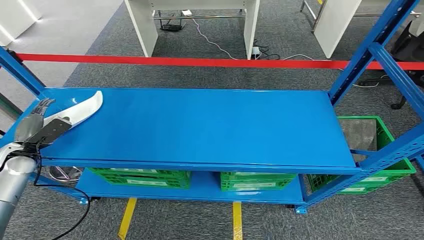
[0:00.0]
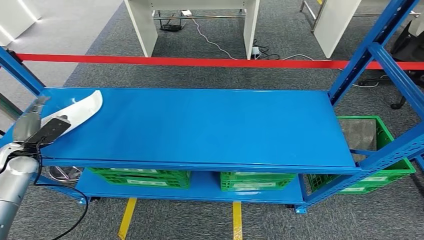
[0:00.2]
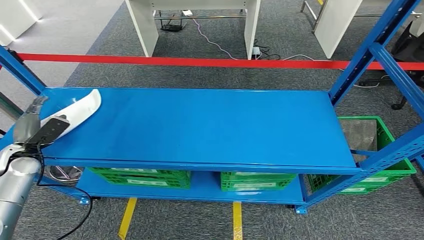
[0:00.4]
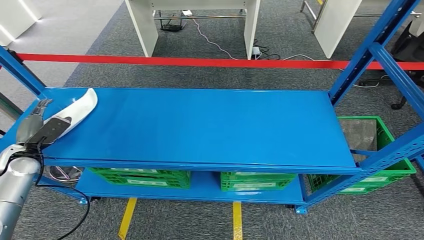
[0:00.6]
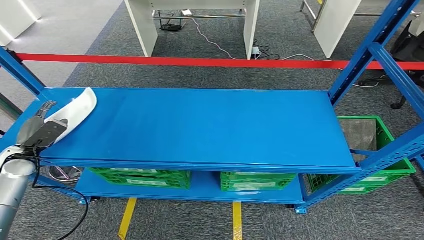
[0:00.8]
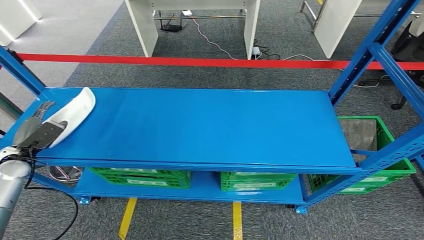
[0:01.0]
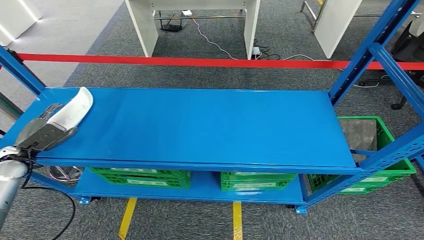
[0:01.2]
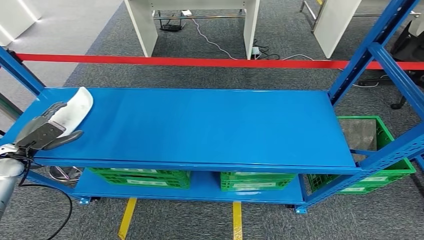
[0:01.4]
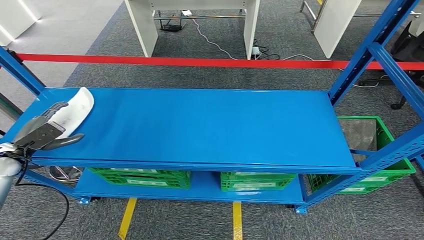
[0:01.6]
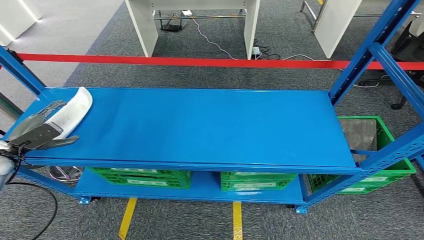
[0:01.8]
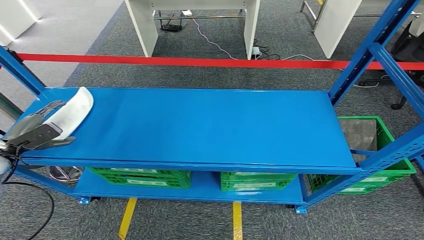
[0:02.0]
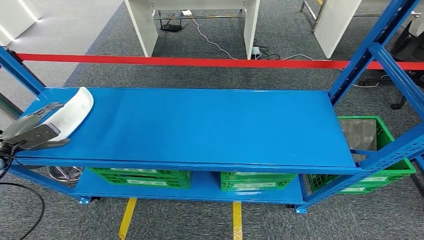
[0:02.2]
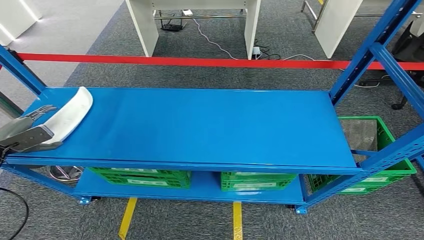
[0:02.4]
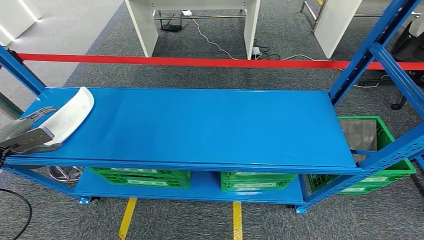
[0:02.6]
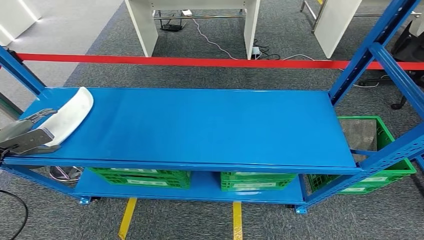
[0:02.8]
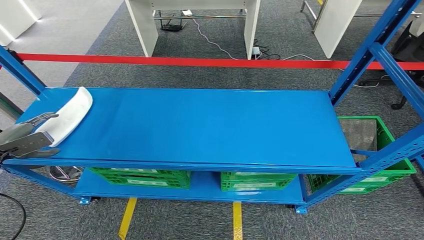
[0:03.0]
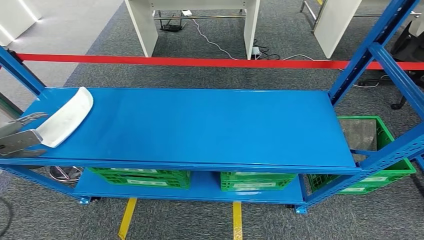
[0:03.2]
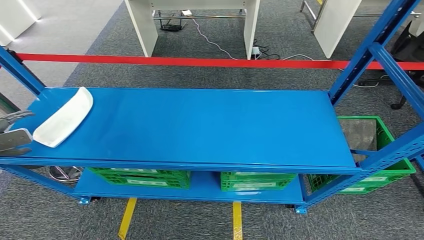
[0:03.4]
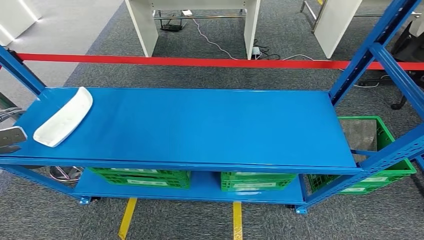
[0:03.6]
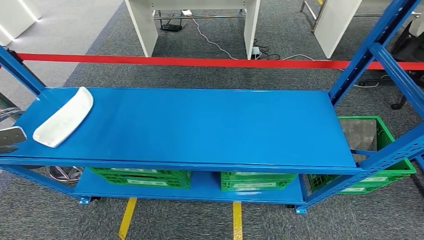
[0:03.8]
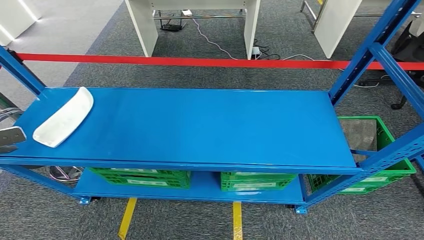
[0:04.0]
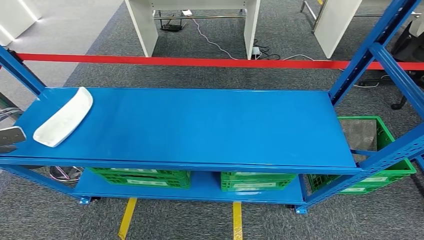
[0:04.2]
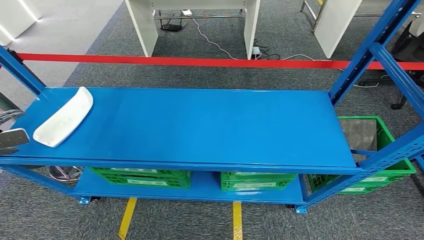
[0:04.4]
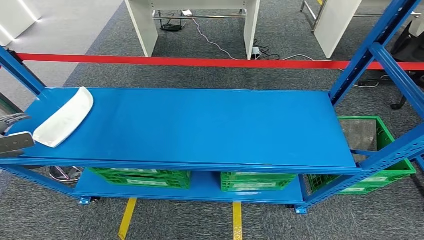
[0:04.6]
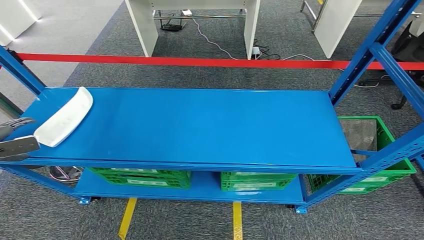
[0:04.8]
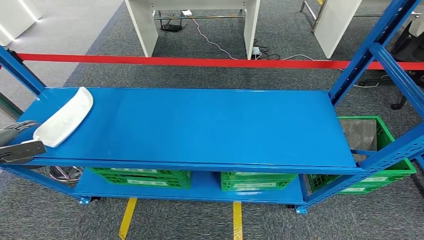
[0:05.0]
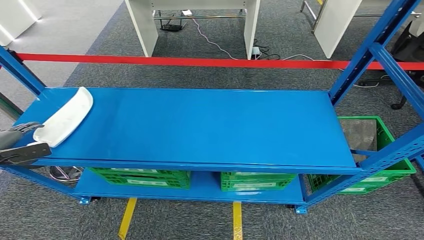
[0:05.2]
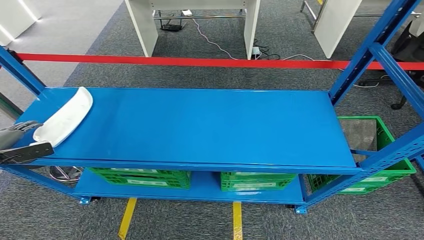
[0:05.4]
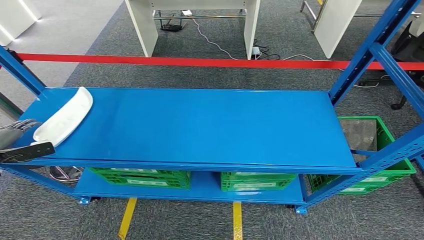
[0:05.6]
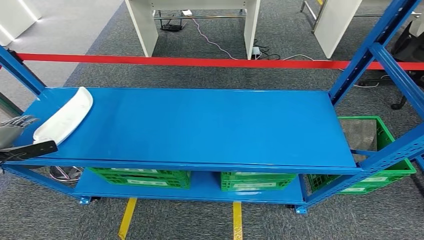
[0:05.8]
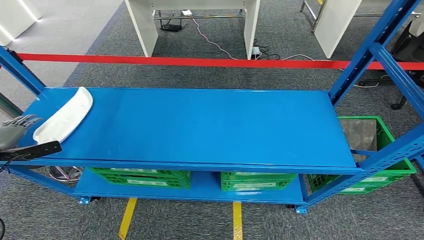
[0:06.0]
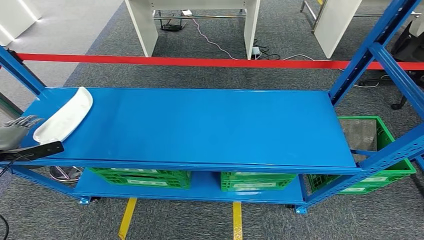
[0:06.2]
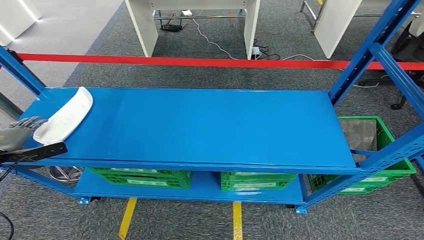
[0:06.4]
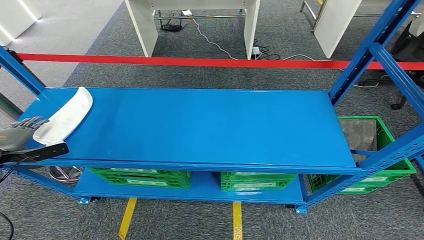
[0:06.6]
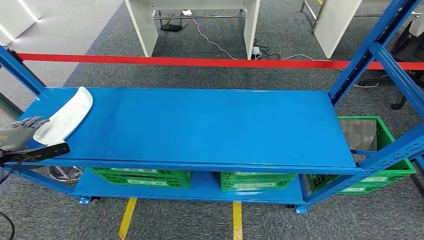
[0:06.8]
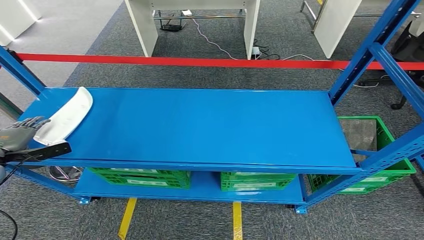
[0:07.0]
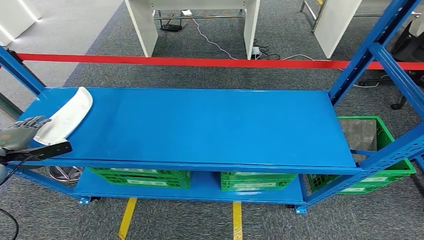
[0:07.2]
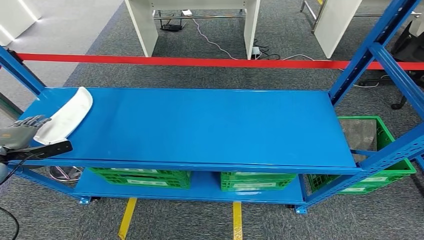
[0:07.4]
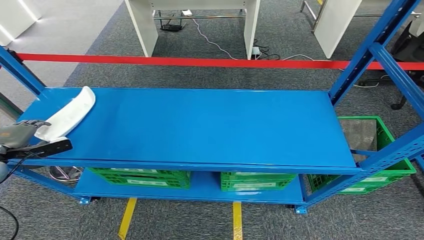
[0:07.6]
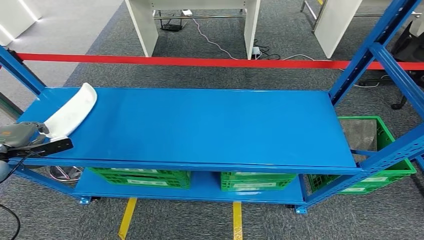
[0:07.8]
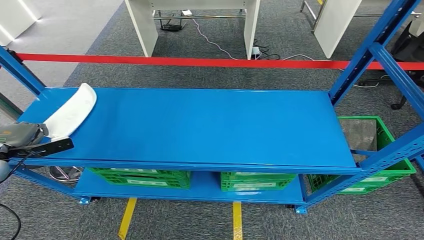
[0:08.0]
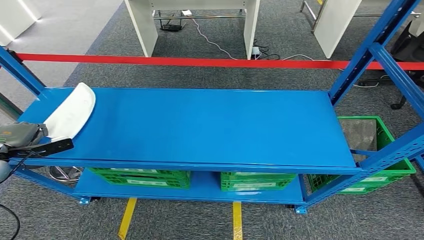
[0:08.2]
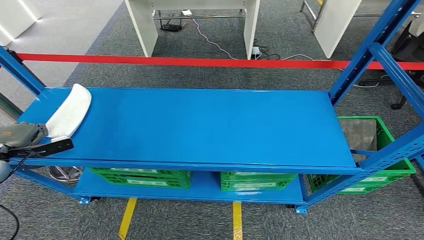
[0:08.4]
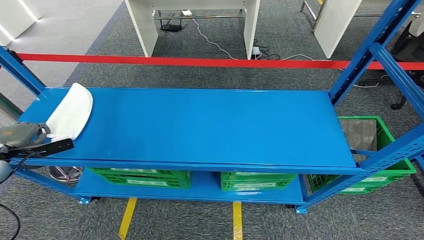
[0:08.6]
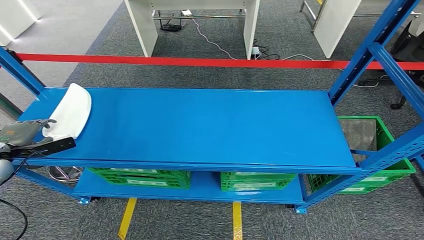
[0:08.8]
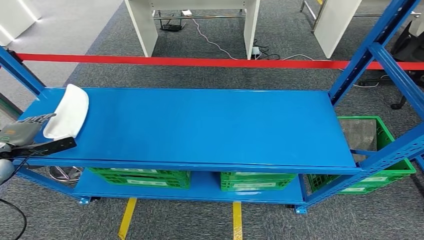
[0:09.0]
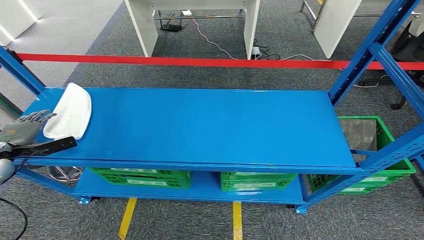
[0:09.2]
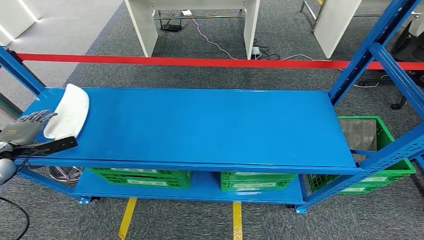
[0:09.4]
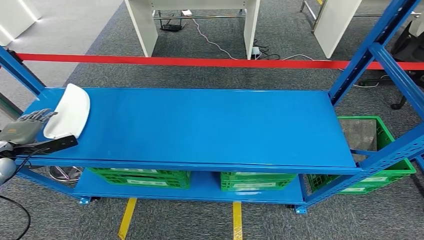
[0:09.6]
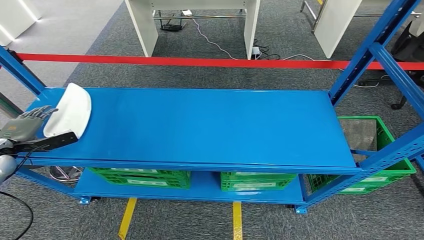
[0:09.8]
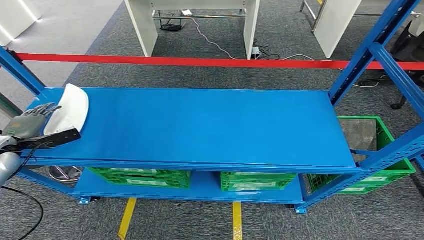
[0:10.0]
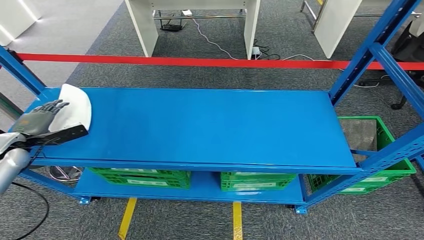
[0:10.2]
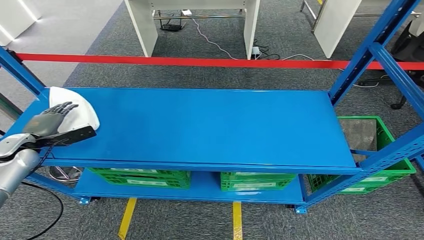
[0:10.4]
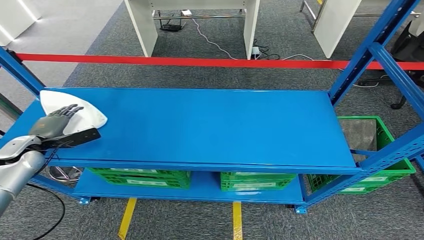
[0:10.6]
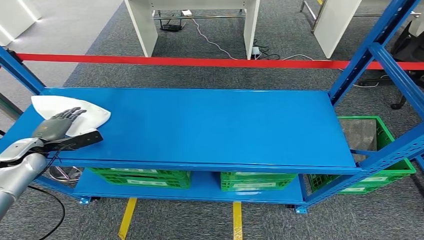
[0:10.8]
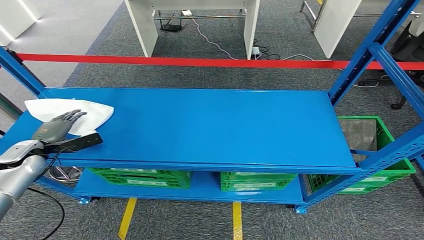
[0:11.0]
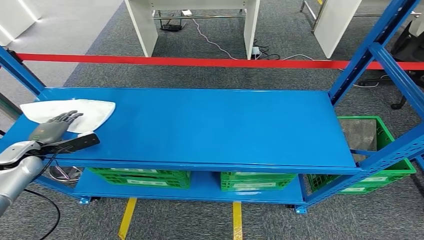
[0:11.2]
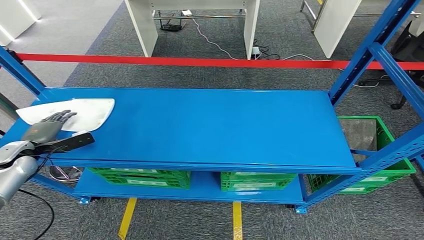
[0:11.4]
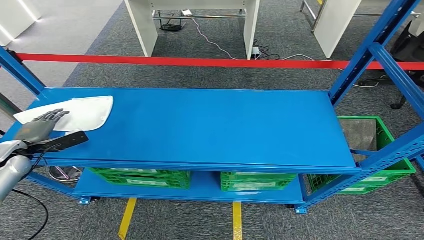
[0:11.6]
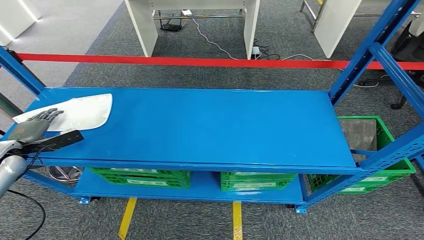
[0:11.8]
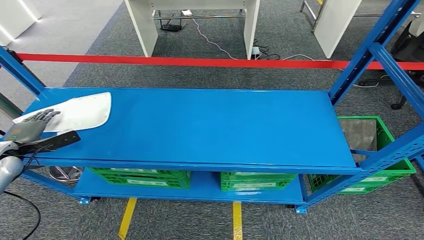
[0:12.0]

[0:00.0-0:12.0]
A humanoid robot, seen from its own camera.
0:01.6 to 0:03.0: The left hand ends up approximately 5 cm from where it was.
0:03.0 to 0:04.4: The left hand is displaced to the left by roughly 5 cm.
0:04.4 to 0:06.0: The left hand is displaced downward by approximately 5 cm.
0:06.0 to 0:07.6: The hands move only a little.
0:07.6 to 0:09.0: Neither hand changes place.
0:09.0 to 0:10.4: The left hand changes place by approximately 5 cm.
0:10.4 to 0:12.0: There are only small adjustments of the hands.

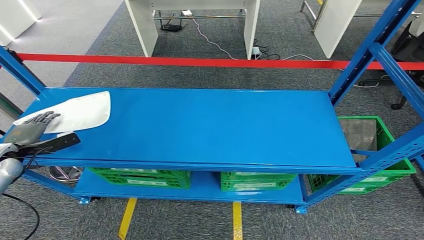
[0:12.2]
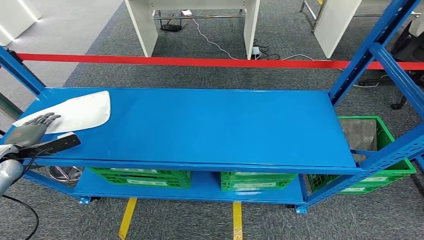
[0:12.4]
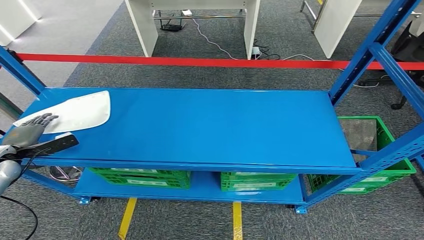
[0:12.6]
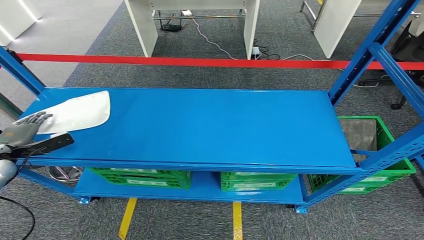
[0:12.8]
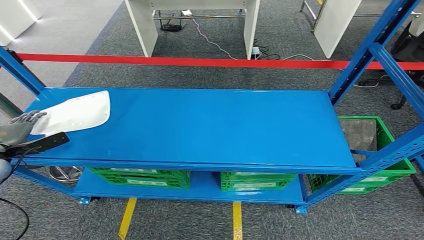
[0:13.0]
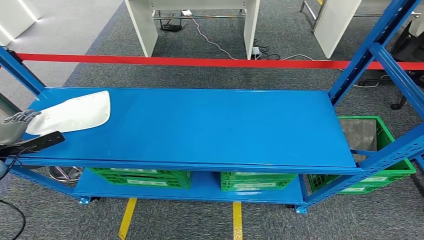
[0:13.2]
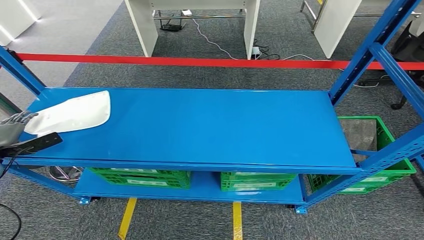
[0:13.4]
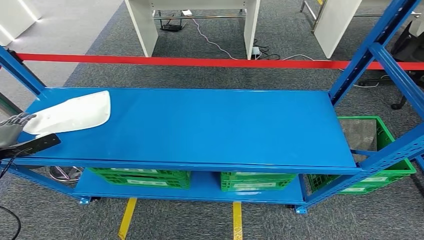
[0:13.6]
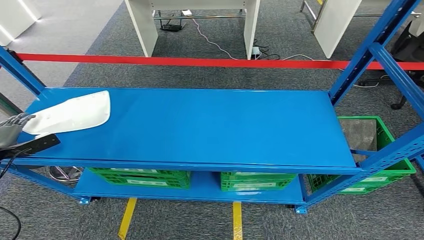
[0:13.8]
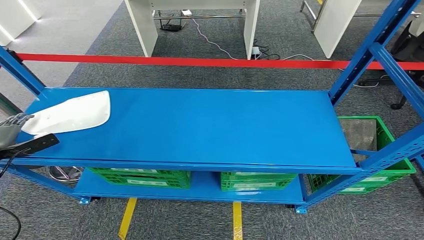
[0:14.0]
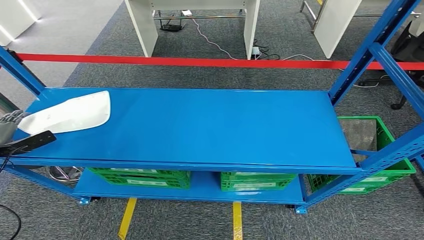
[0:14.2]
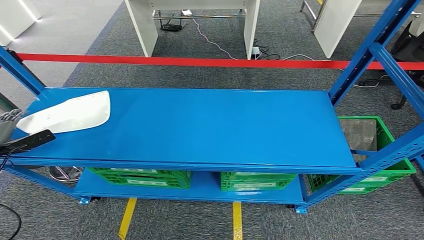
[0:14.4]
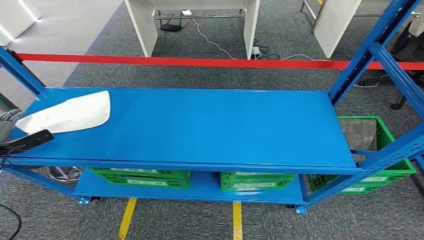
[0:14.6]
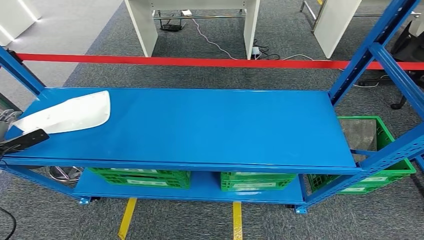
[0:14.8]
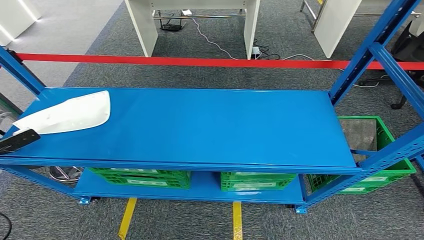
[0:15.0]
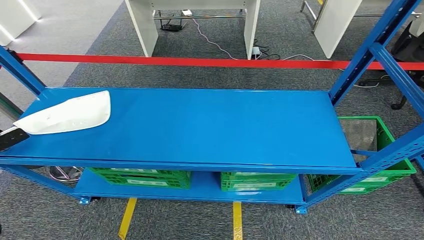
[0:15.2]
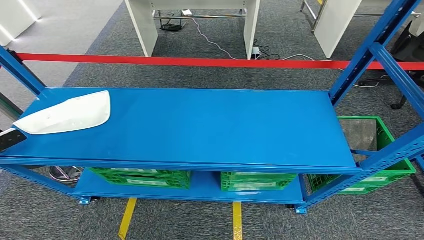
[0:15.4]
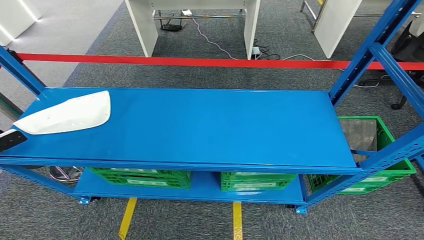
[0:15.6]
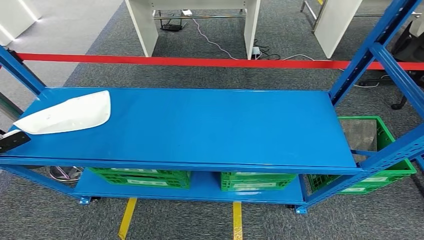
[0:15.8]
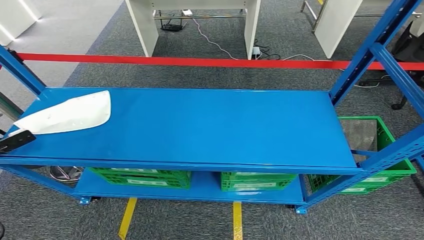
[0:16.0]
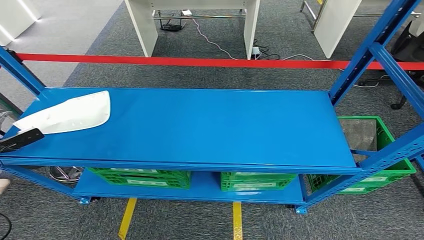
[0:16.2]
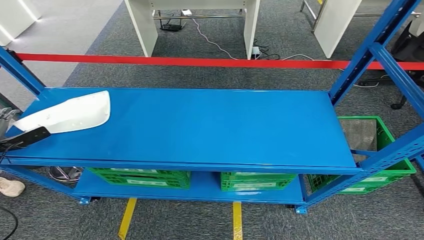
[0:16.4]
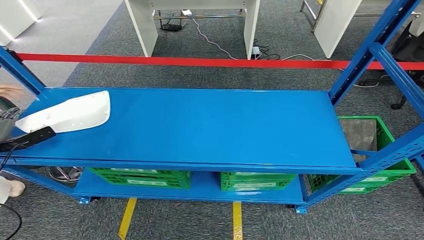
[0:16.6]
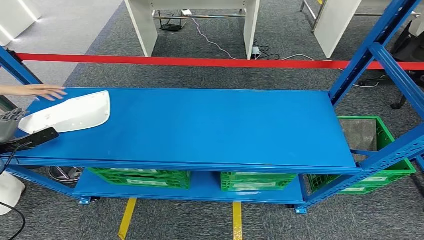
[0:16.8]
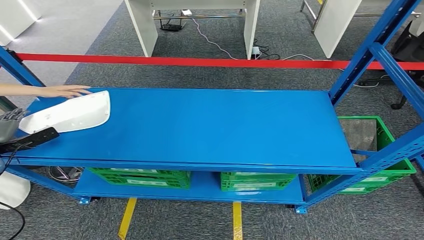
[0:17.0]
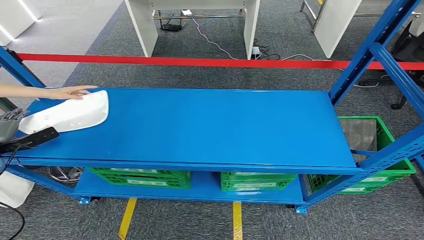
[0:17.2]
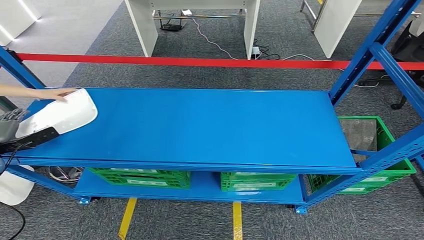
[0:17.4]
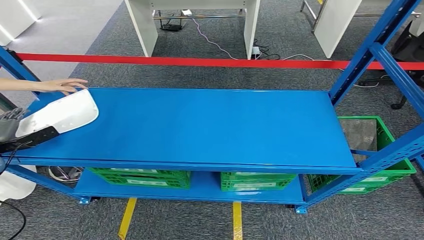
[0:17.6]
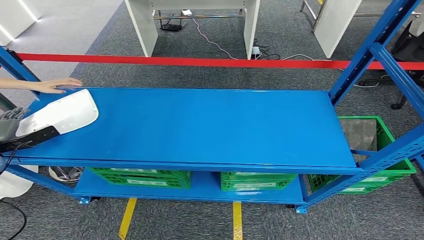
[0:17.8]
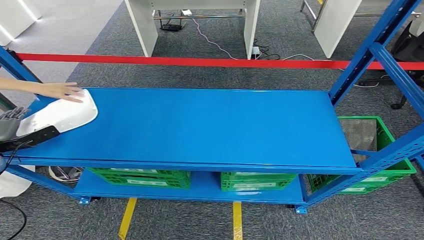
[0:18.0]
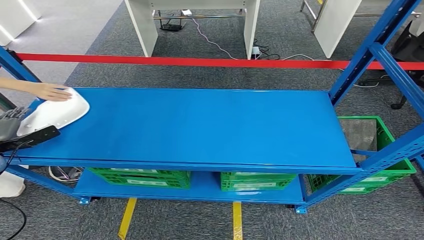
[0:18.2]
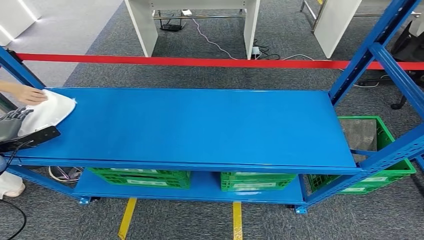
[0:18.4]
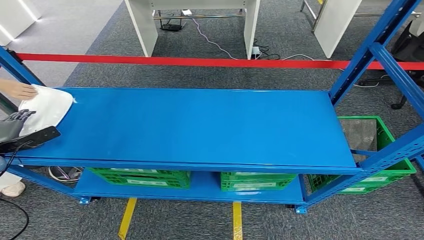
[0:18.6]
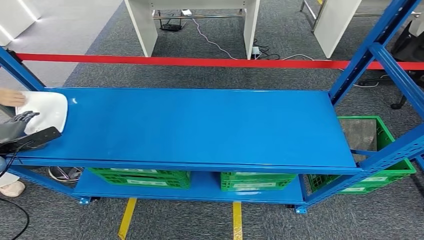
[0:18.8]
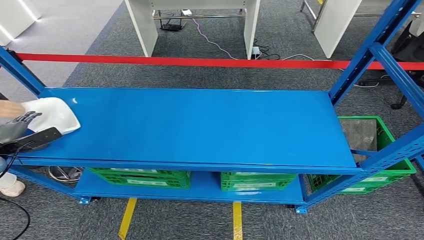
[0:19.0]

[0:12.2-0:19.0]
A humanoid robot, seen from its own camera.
0:12.2 to 0:13.6: There are only small adjustments of the hands.
0:13.6 to 0:15.0: The hands make only small movements.
0:15.0 to 0:19.0: The hands make only small movements.
